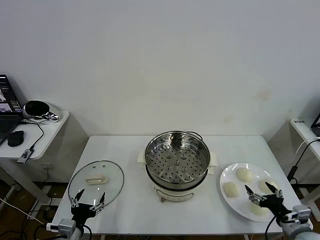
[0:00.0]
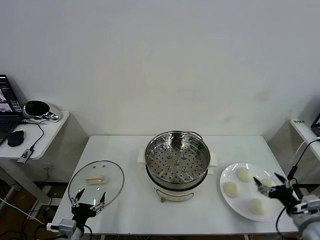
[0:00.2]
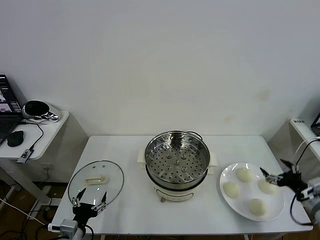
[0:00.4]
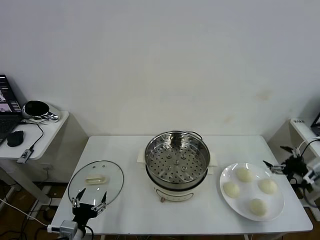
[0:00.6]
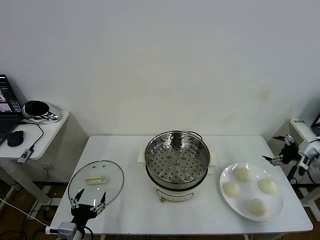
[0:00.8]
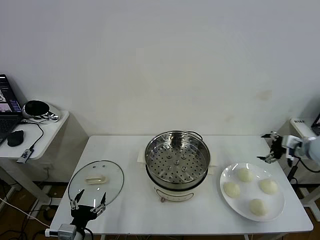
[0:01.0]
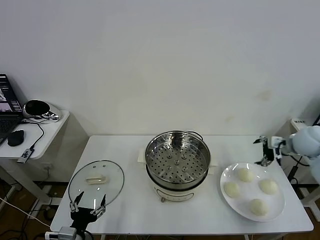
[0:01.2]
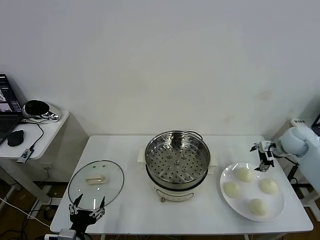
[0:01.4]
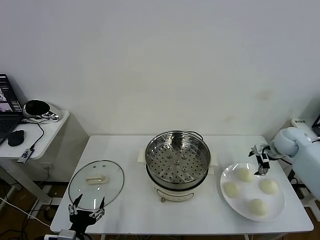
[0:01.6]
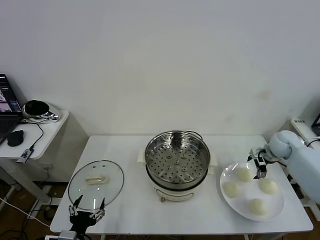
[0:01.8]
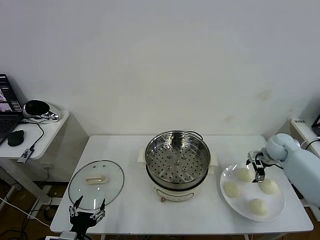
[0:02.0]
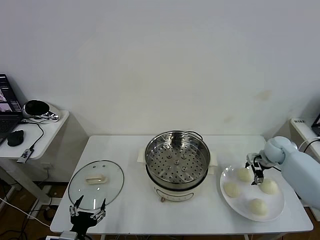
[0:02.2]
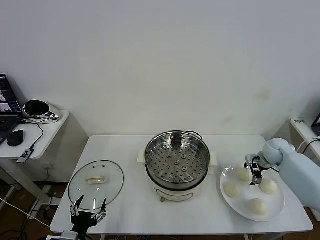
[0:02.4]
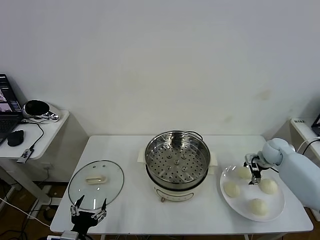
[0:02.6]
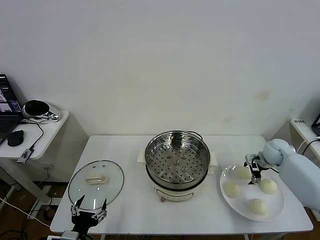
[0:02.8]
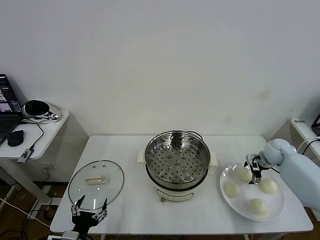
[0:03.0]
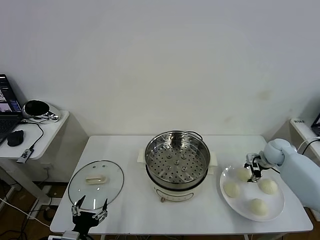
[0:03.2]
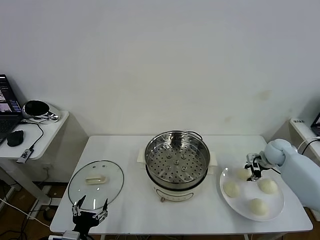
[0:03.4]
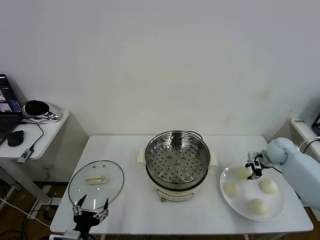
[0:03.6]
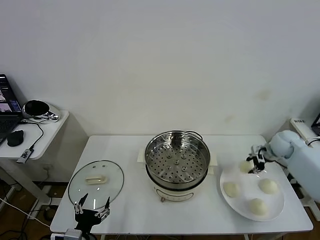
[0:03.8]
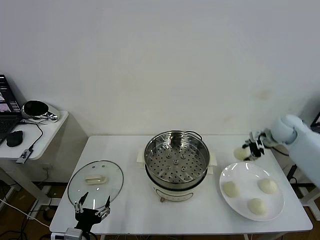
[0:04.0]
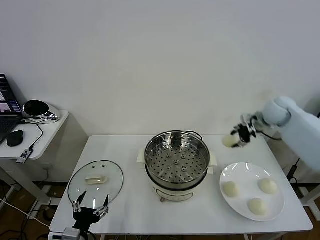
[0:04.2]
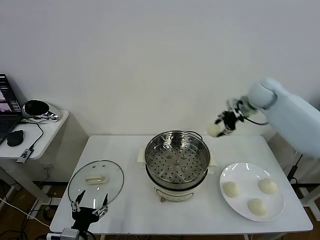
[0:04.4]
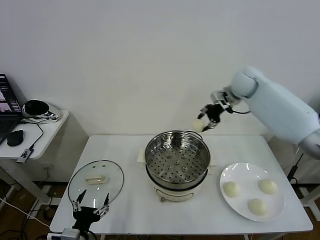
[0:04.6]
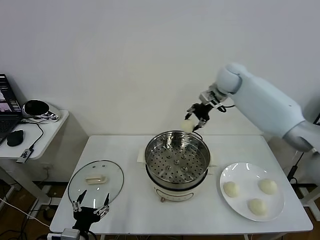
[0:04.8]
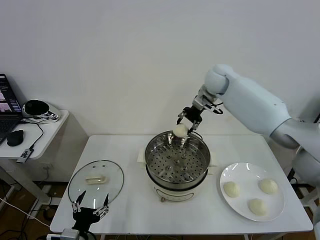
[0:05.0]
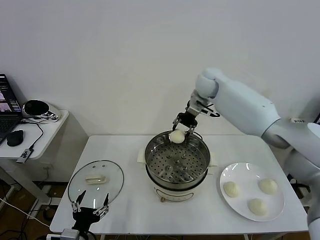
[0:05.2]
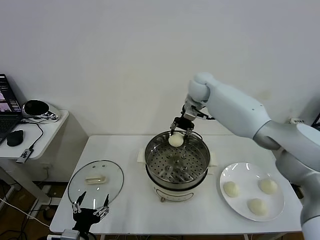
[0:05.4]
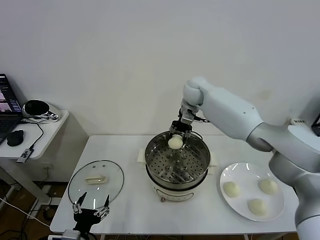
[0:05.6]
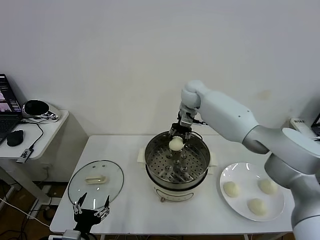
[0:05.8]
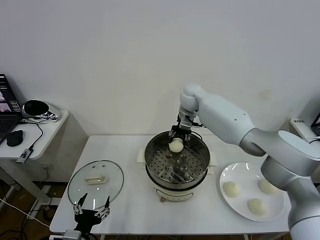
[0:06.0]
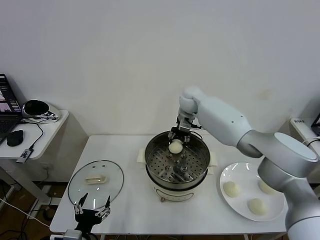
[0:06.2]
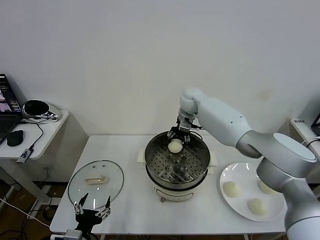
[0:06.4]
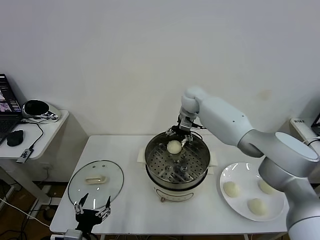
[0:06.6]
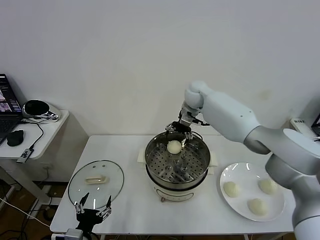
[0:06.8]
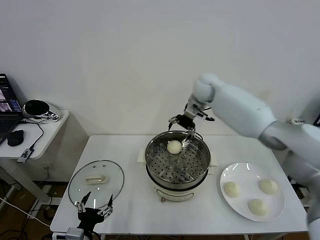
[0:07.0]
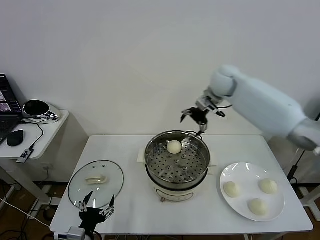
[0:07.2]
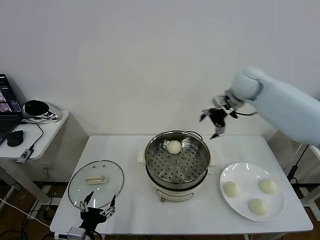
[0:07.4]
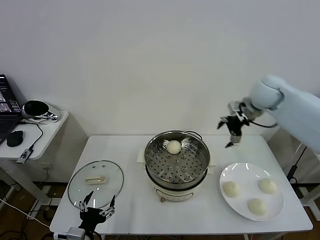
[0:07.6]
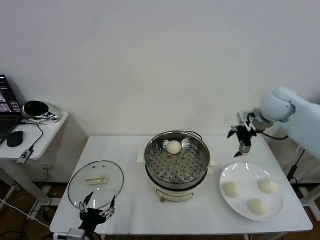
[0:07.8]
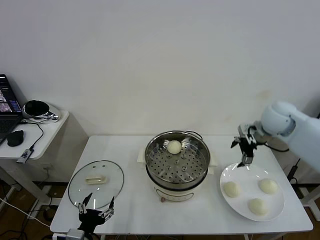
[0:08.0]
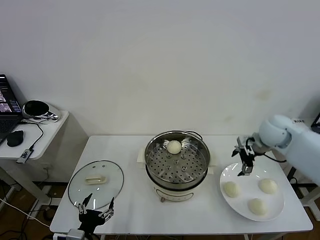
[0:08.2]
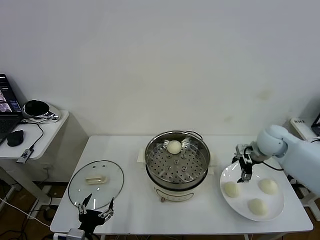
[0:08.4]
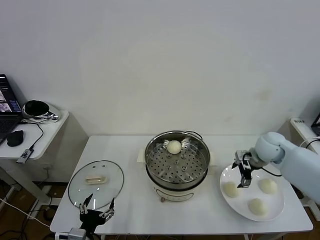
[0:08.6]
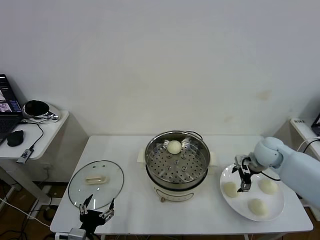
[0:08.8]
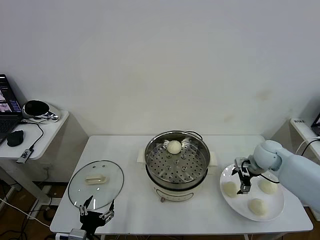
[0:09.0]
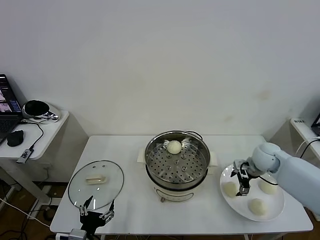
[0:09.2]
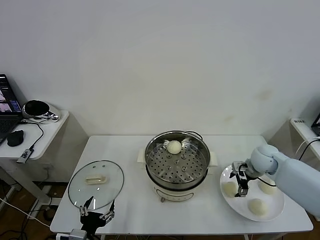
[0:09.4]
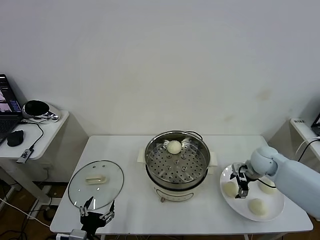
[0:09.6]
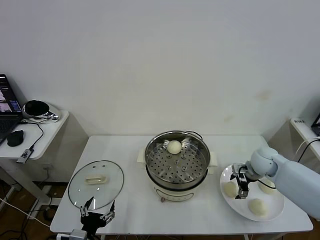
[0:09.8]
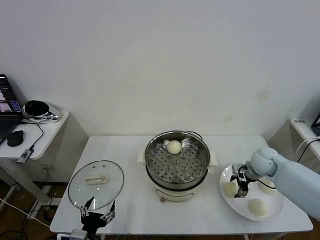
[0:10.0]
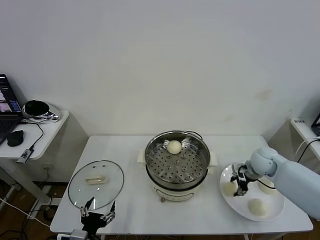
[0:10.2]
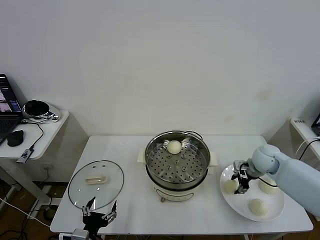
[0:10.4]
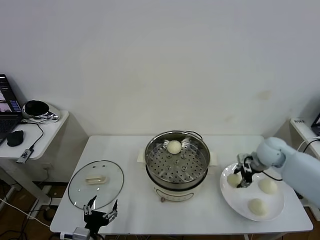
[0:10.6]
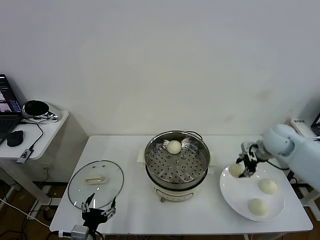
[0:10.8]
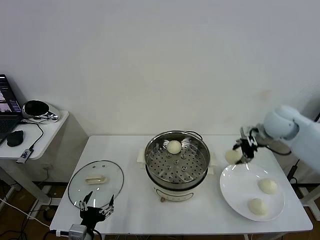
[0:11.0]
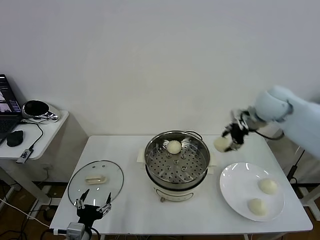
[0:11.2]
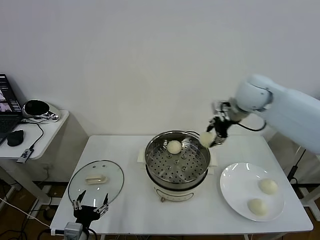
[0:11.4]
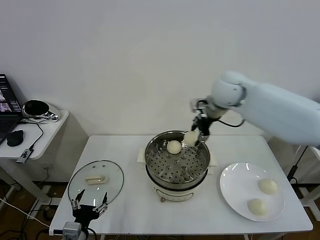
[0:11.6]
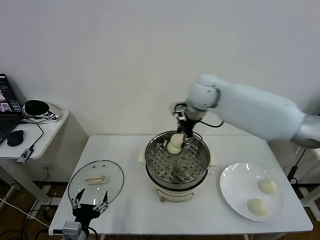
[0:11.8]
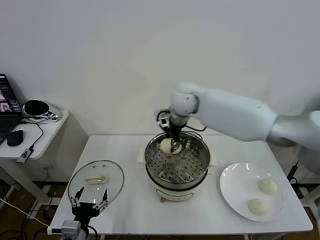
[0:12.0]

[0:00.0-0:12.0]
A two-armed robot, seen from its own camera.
Task of the whole recording: take steamed baozi put them in steamer then cover it.
Step, 0:00.0 to 0:03.2: Grasp the baozi in the plate with right gripper.
Step, 0:03.4 to 0:06.6: Place the baozi on the steamer with right gripper.
Step, 0:06.8 to 0:10.2: Grasp the baozi in the plate with right gripper.
0:01.6 to 0:03.0: The right gripper heads downward, covering about 5 cm.
0:03.0 to 0:04.4: The right gripper shifts some 30 cm upward, to the left and forward, and closes.
0:04.4 to 0:06.0: The right gripper travels to the left by about 20 cm.
0:06.0 to 0:07.6: The right gripper goes about 25 cm to the right and backward, and opens its fingers.
0:07.6 to 0:09.0: The right gripper heads downward, covering about 20 cm.
0:09.0 to 0:10.4: The right gripper closes its fingers.
0:10.4 to 0:12.0: The right gripper shifts some 35 cm to the left and upward.

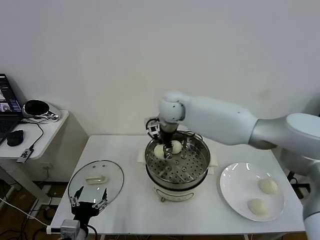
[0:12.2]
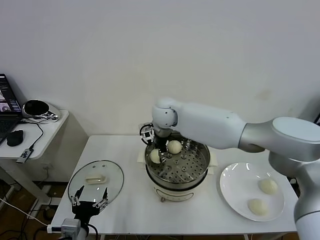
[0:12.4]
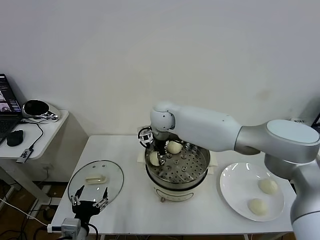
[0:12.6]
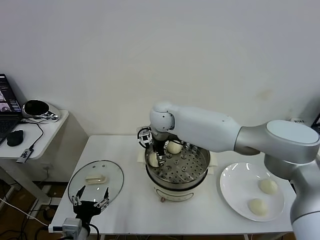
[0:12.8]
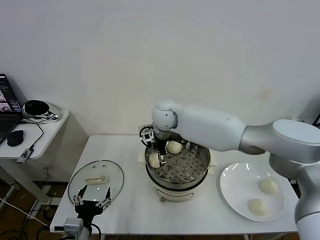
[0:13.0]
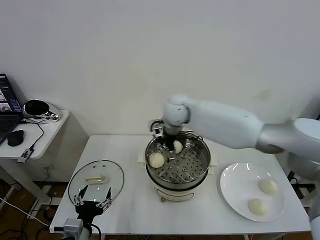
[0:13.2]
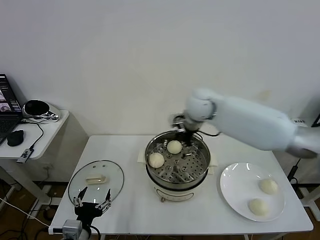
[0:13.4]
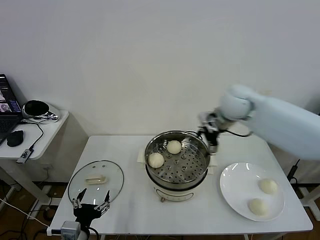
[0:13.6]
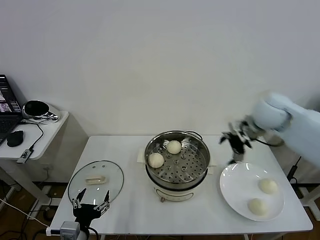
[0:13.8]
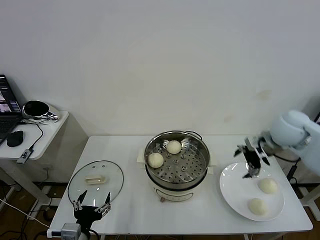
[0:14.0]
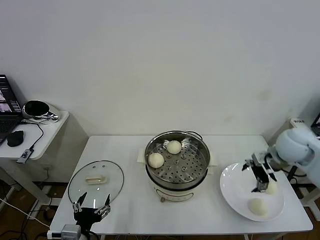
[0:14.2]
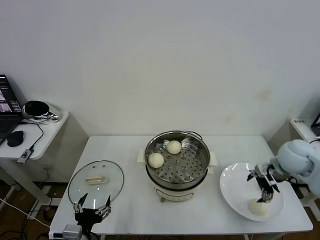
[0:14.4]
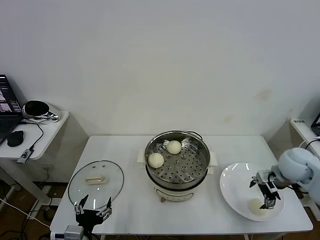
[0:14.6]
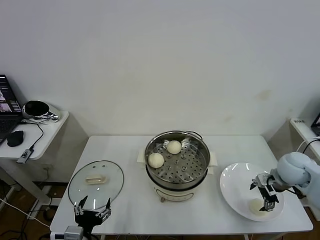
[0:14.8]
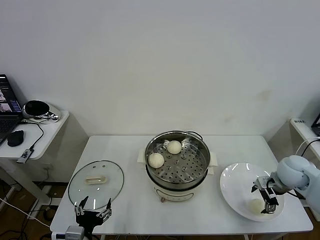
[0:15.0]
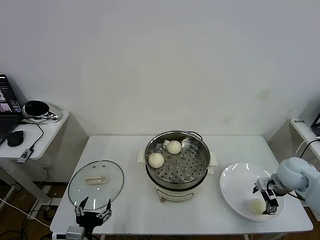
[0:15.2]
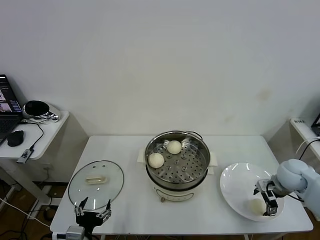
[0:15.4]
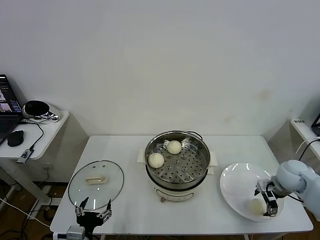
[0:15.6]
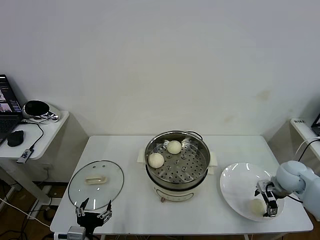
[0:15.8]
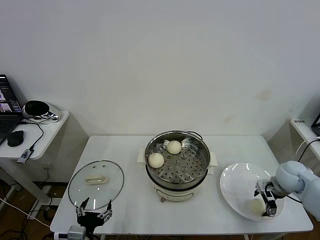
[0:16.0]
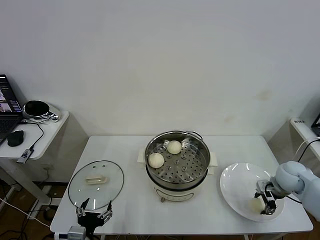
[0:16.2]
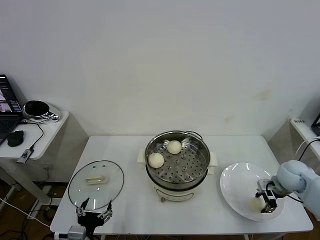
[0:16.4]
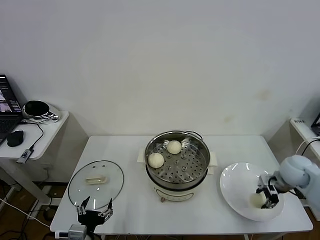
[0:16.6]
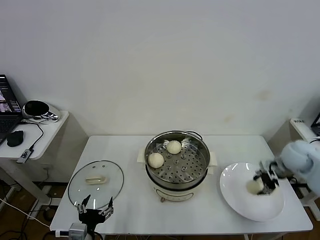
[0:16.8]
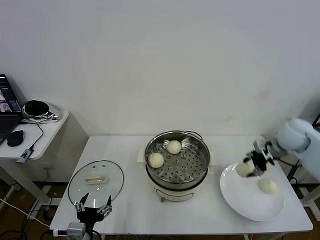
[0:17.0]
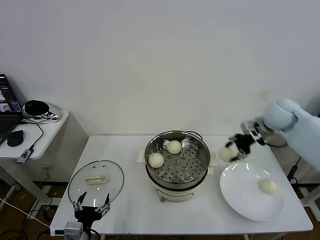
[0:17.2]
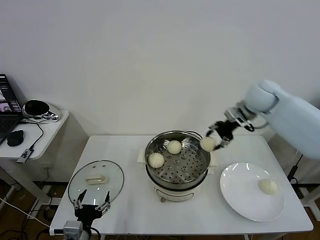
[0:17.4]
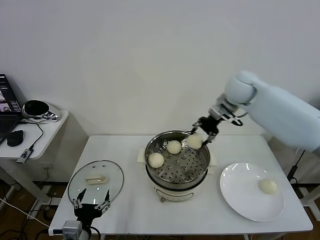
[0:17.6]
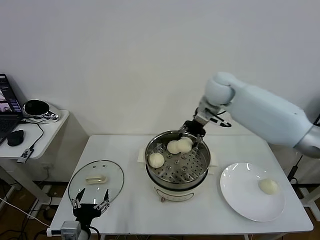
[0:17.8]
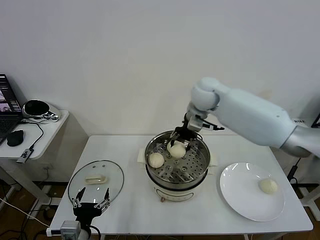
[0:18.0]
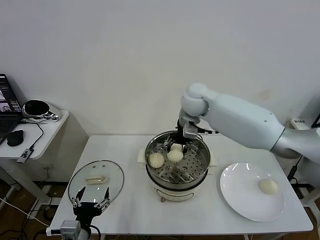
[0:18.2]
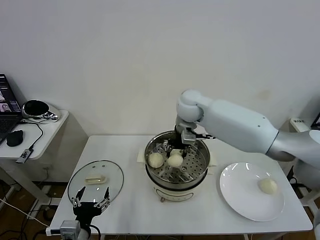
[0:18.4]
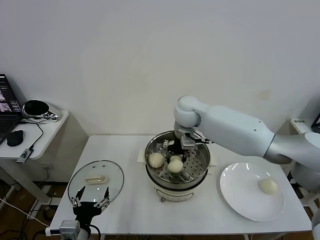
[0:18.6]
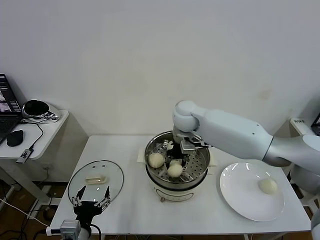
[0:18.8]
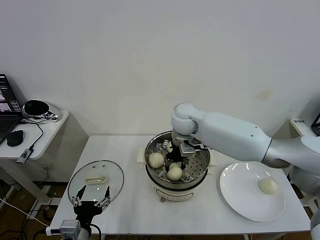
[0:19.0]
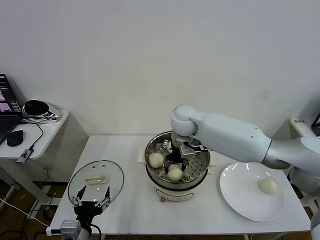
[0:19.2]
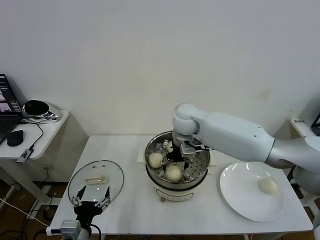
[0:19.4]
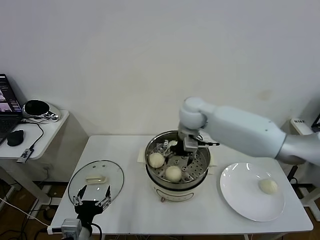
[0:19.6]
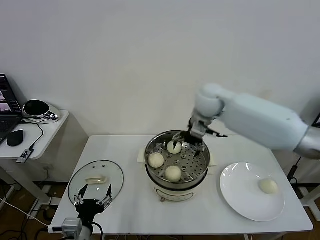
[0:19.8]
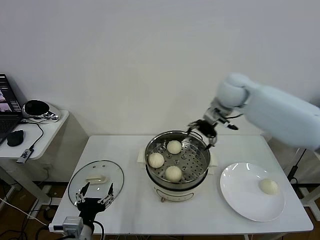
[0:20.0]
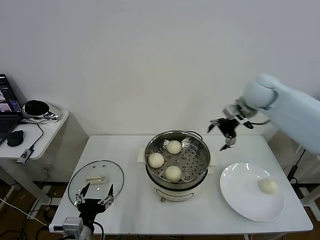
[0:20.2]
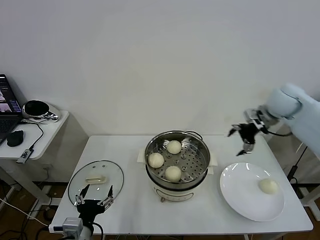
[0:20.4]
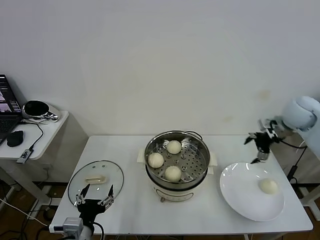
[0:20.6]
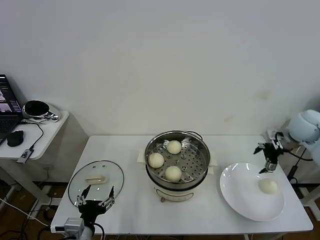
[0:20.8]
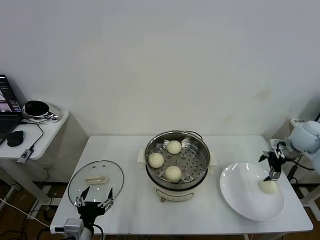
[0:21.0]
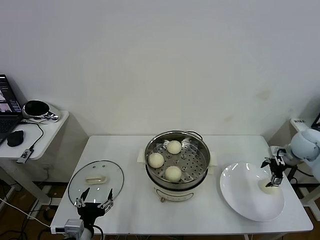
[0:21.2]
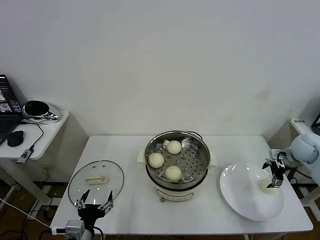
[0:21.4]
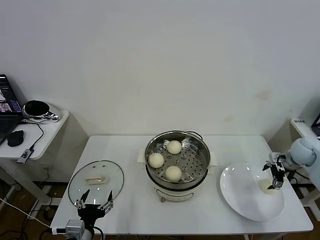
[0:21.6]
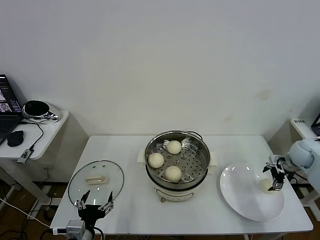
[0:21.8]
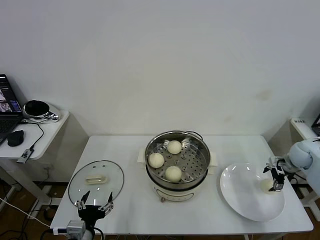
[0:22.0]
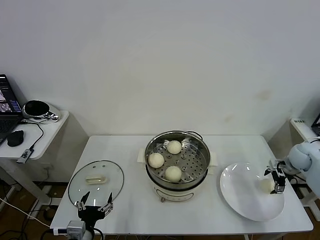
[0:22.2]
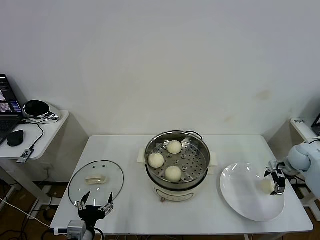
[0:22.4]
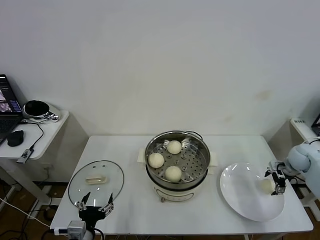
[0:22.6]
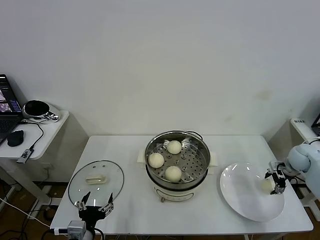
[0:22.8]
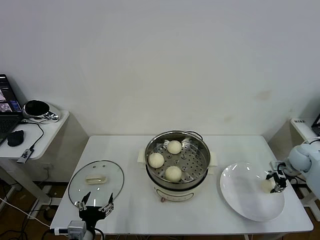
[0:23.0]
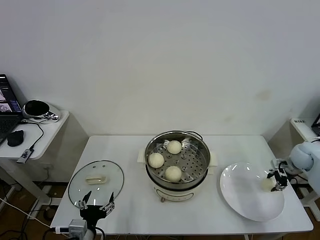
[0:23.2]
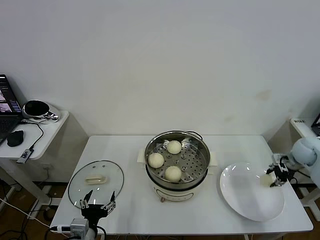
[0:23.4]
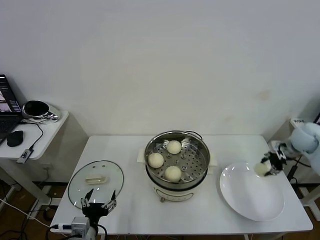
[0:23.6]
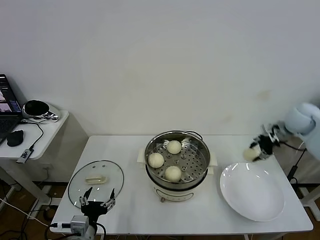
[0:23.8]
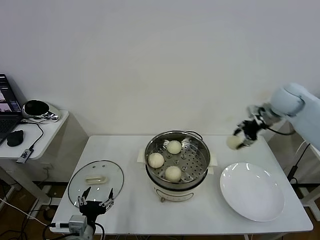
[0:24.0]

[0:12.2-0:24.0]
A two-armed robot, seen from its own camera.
Task of the whole recording: take steamed baozi put them in steamer then cover it.
Step, 0:13.2 to 0:16.2: Grasp the baozi in the plate with right gripper.
Step, 0:16.6 to 0:19.4: Place the baozi on the steamer with right gripper.
Step, 0:19.6 to 0:23.0: Grasp the baozi in the plate with right gripper.
0:12.2 to 0:13.6: The right gripper heads to the right, covering some 25 cm, and opens its fingers.
0:13.6 to 0:15.2: The right gripper shifts roughly 30 cm downward, to the right and backward.
0:15.2 to 0:16.6: The right gripper closes its fingers.
0:16.6 to 0:18.2: The right gripper heads to the left, upward and forward, covering approximately 40 cm.
0:18.2 to 0:19.6: The right gripper opens.
0:19.6 to 0:21.0: The right gripper shifts some 35 cm to the right.
0:21.0 to 0:22.6: The right gripper shifts roughly 10 cm downward.
0:22.6 to 0:24.0: The right gripper goes some 25 cm upward and to the left, and closes up.
